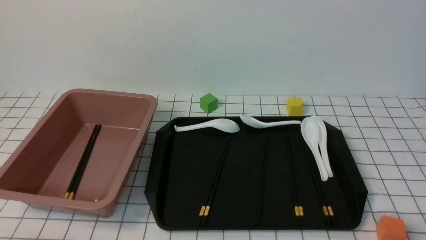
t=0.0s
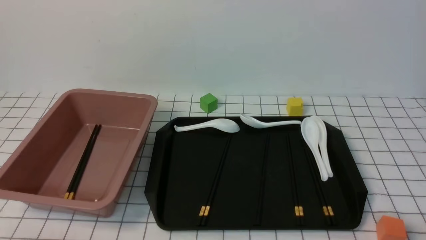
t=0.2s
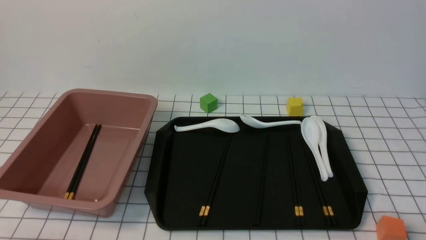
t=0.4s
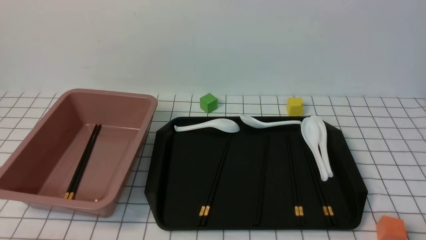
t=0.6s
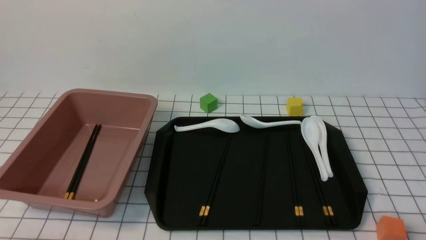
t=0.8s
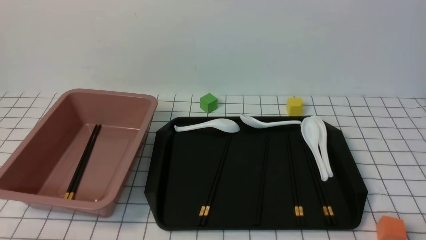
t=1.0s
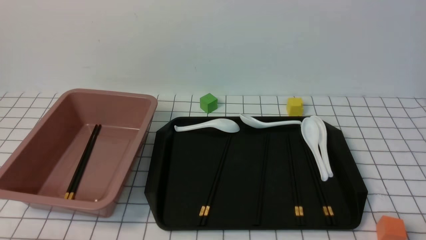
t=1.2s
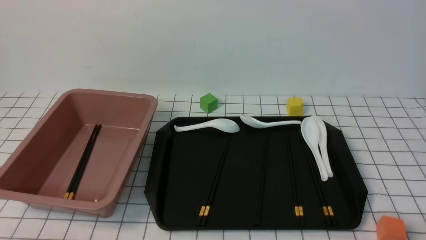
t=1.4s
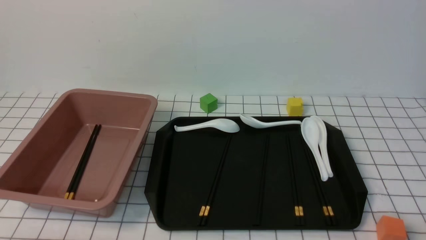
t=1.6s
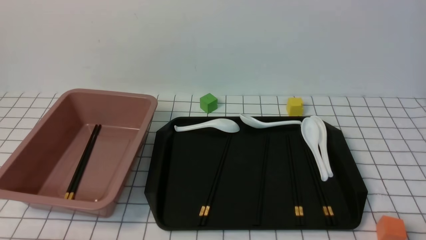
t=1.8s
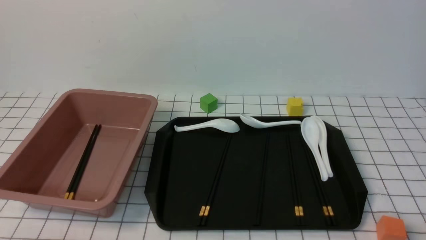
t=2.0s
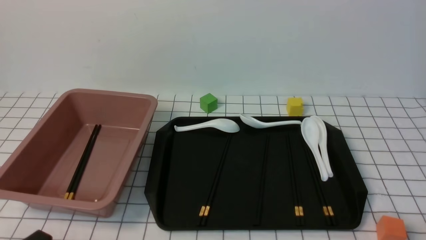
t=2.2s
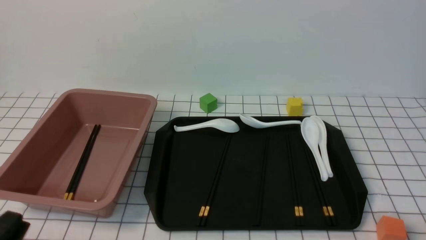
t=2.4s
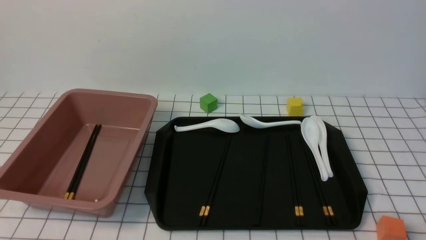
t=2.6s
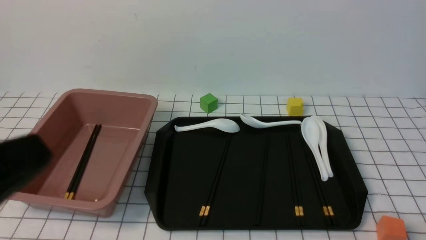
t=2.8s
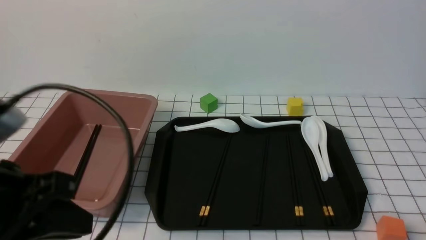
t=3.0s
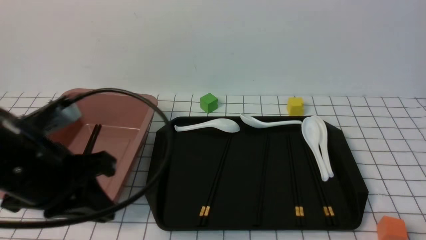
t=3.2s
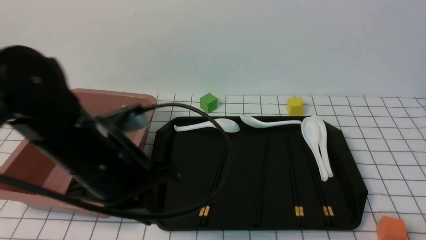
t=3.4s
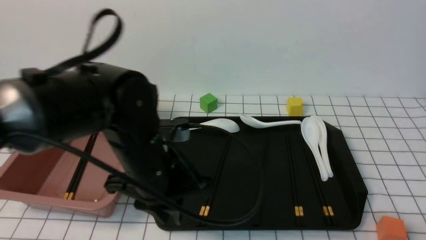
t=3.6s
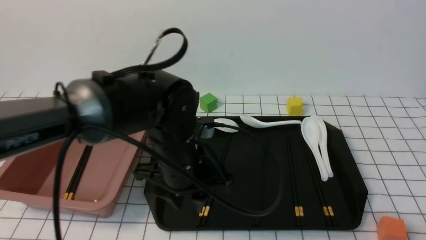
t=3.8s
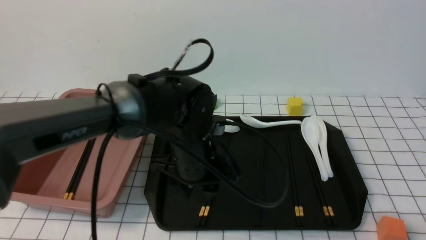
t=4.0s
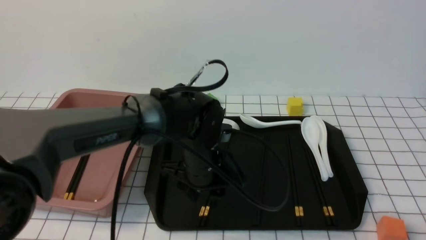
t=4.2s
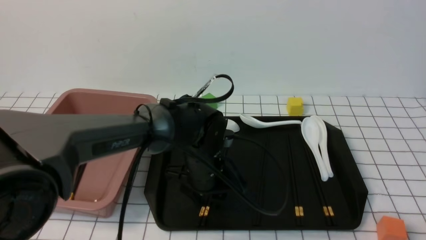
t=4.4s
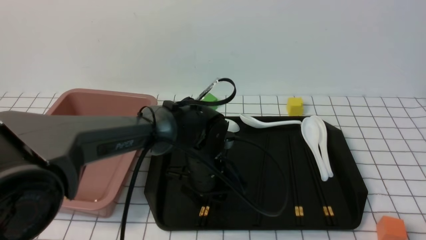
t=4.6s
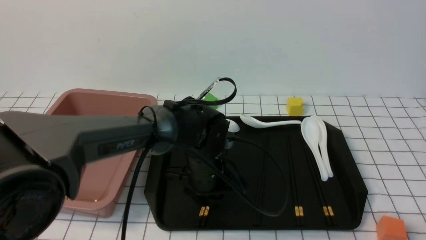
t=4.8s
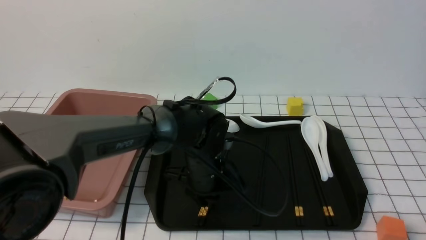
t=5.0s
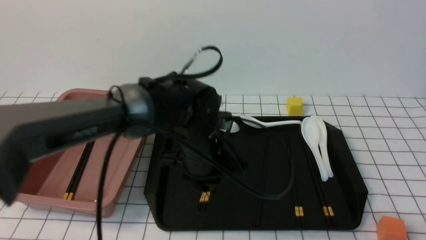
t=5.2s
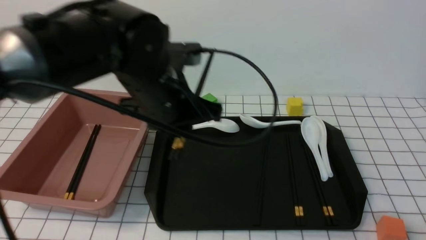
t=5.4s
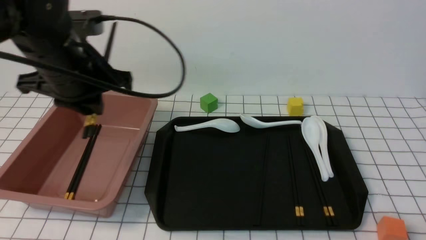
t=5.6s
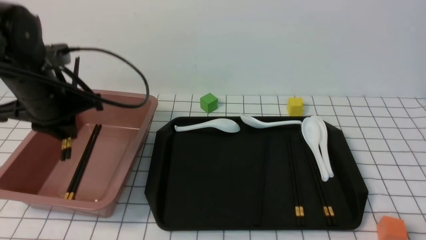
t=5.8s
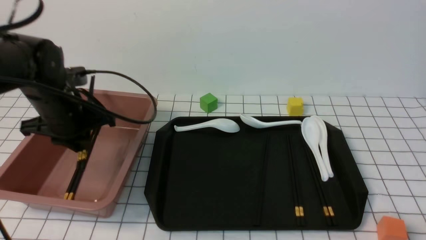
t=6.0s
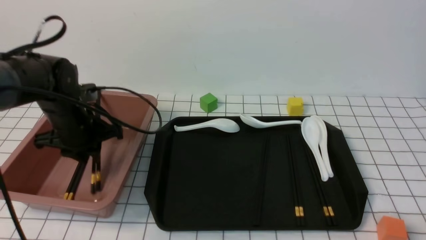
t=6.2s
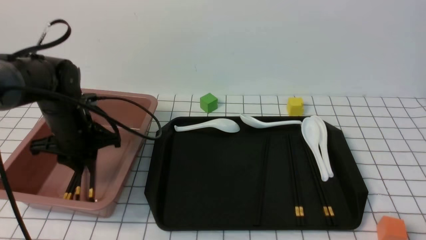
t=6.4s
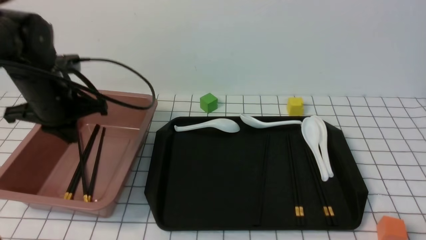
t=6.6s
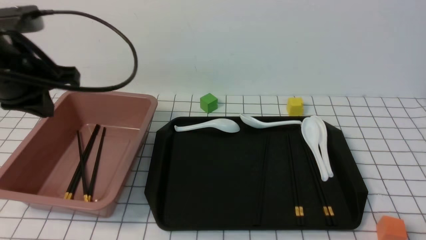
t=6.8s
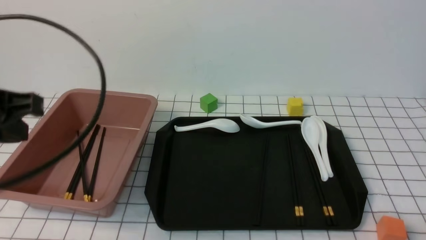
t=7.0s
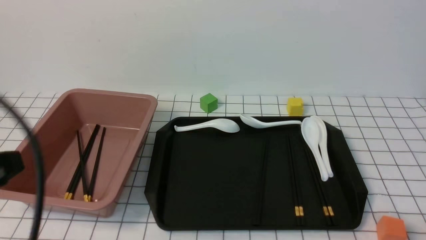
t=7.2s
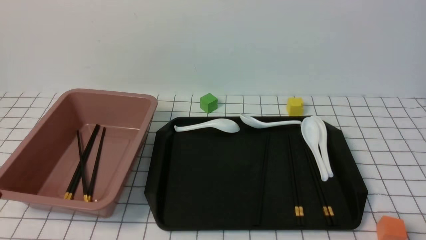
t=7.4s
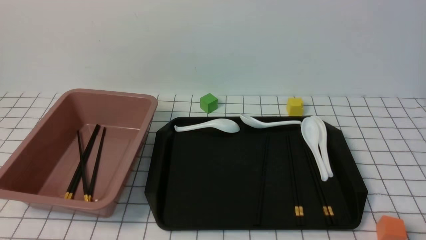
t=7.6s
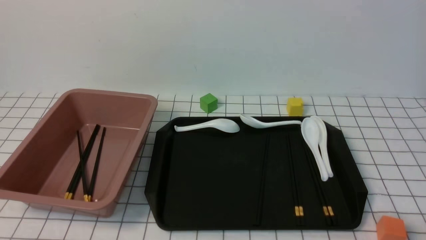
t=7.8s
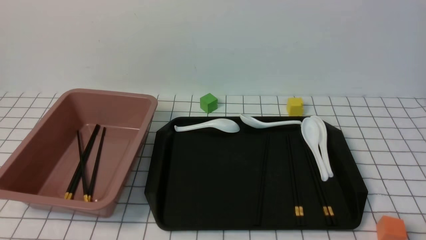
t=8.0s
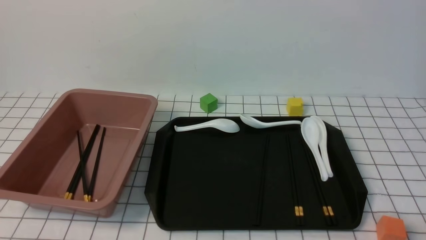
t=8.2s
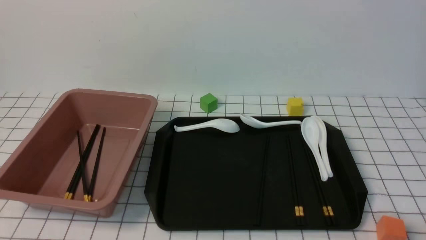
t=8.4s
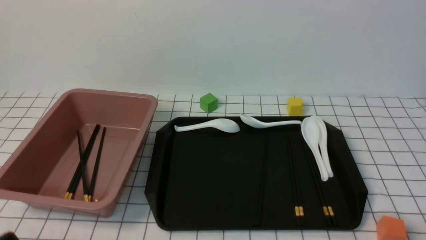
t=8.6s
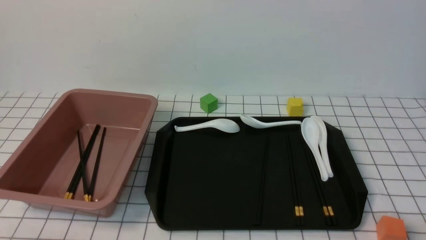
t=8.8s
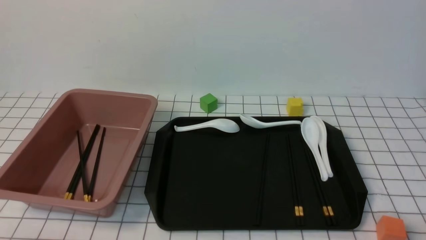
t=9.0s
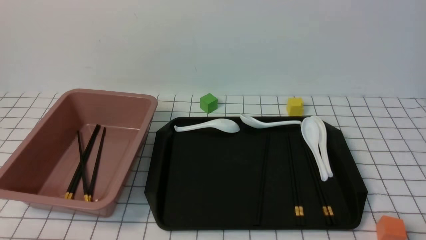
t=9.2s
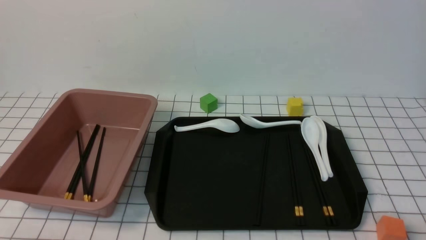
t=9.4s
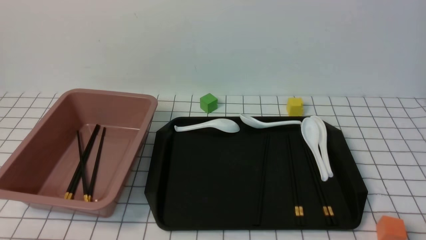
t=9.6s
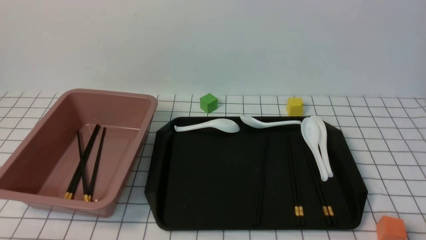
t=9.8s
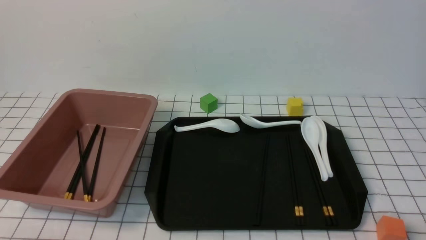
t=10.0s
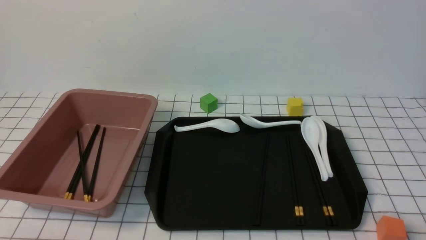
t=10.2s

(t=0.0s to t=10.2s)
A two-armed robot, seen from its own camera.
Step, t=0.0s - t=5.0s: use the left arm to grab a pair of chopsticks.
Step, t=5.2s - t=6.6s: use the left arm to put the chopsticks into the lunch box.
t=1.4s - t=3.0s: The left gripper is displaced upward by roughly 20 cm.
t=3.0s - t=4.4s: The left gripper goes some 35 cm forward, to the right and downward, and opens up.
t=4.4s - t=5.8s: The left gripper shifts approximately 20 cm to the left and upward, and closes up.
t=5.8s - t=7.2s: The left gripper is displaced backward by roughly 20 cm, and closes up.
t=7.2s - t=8.8s: The left gripper goes some 20 cm downward and backward.
